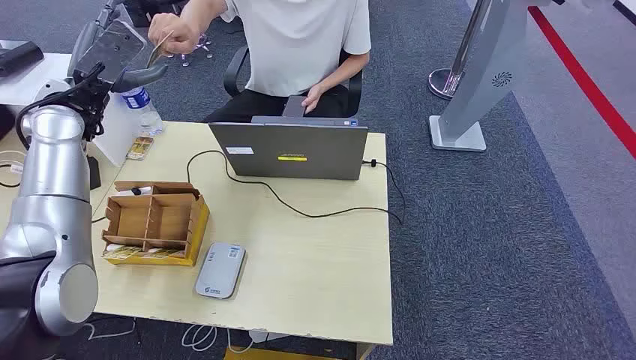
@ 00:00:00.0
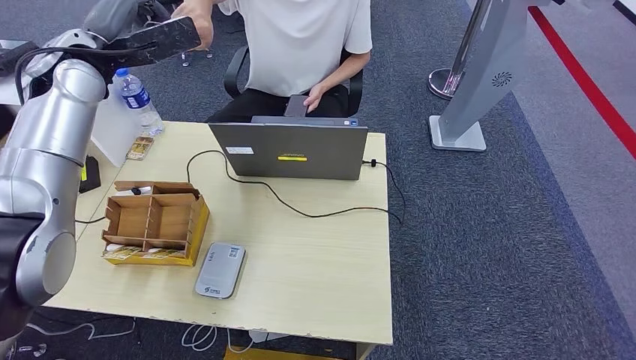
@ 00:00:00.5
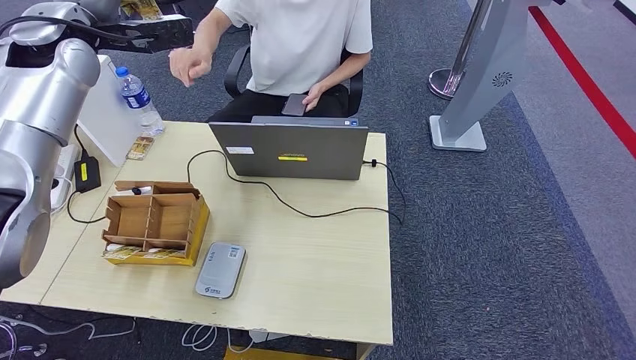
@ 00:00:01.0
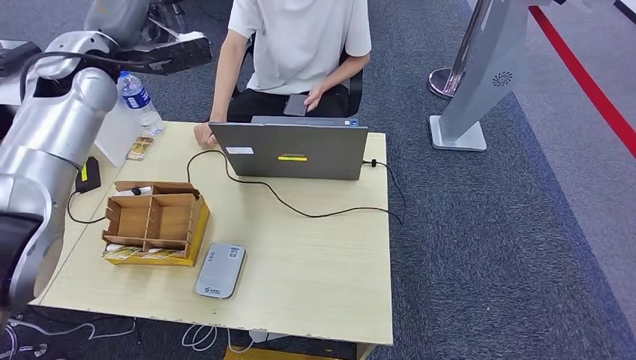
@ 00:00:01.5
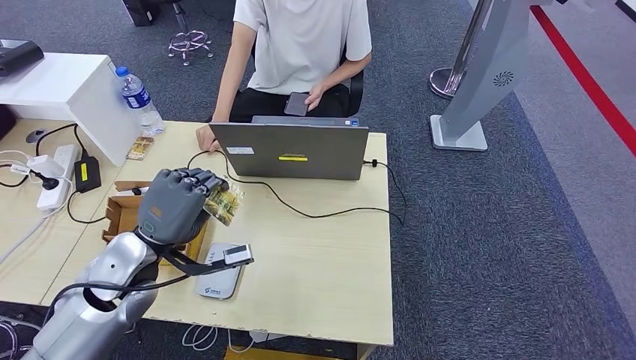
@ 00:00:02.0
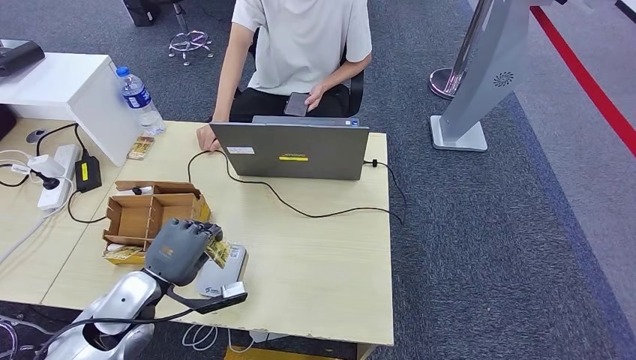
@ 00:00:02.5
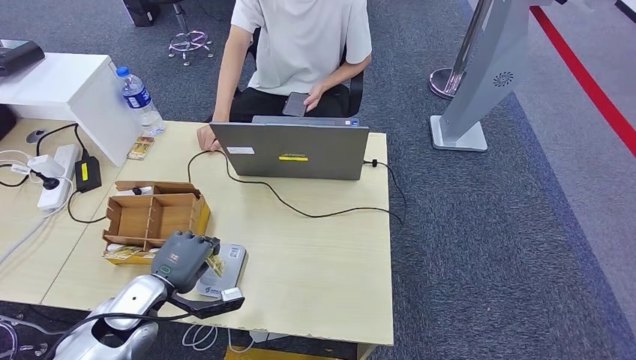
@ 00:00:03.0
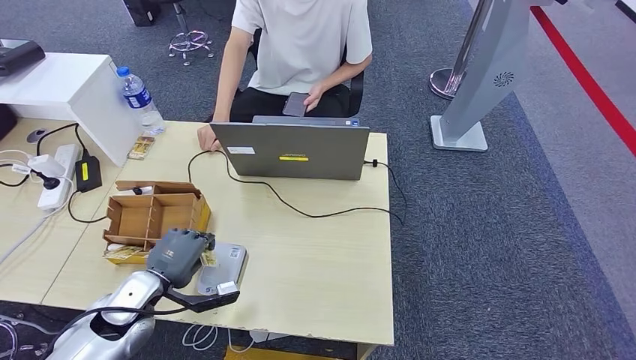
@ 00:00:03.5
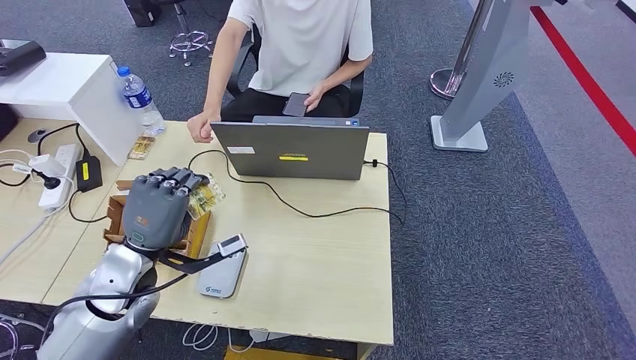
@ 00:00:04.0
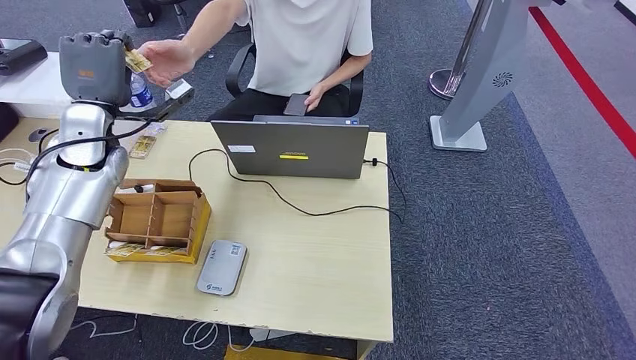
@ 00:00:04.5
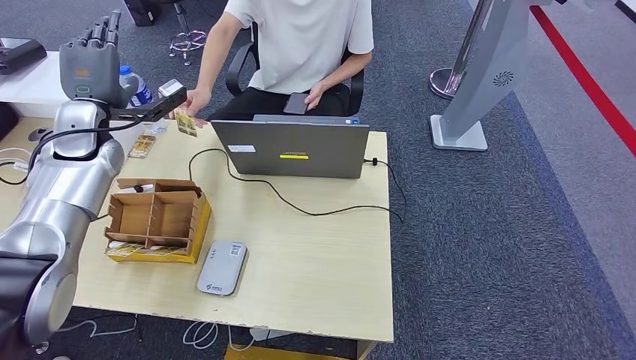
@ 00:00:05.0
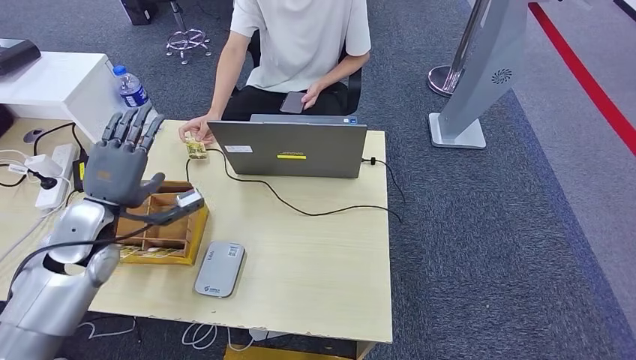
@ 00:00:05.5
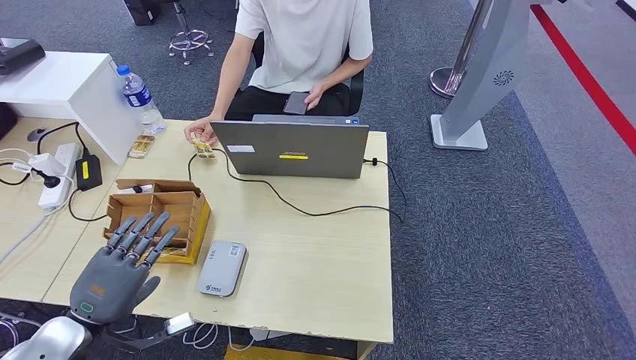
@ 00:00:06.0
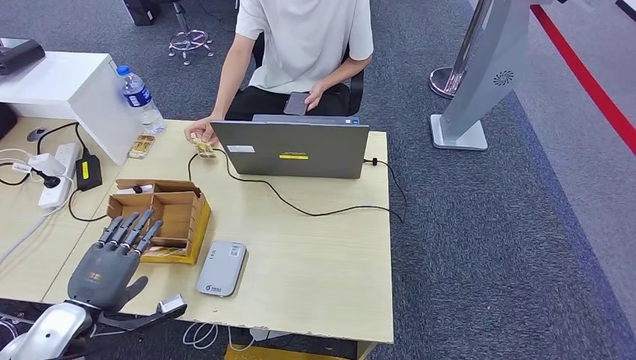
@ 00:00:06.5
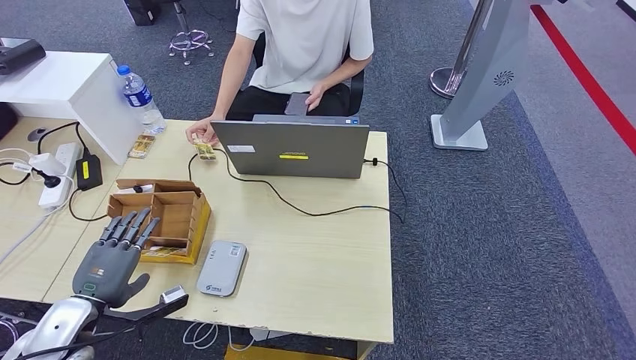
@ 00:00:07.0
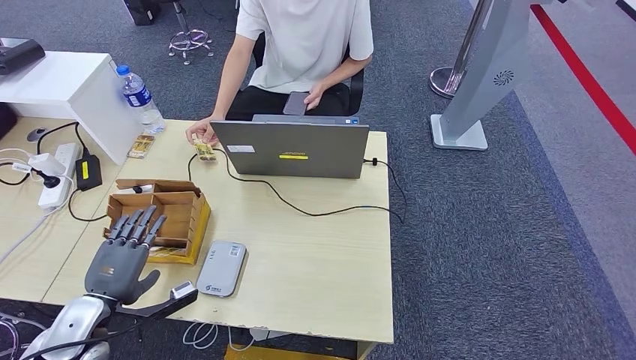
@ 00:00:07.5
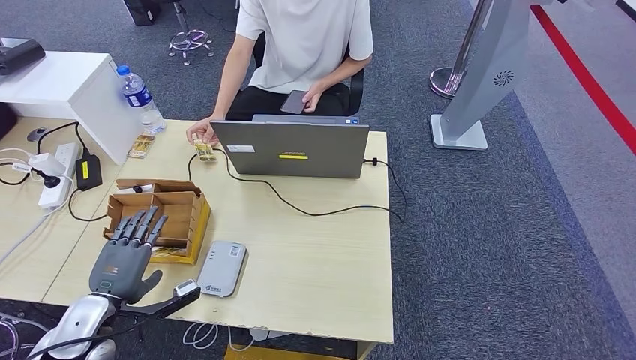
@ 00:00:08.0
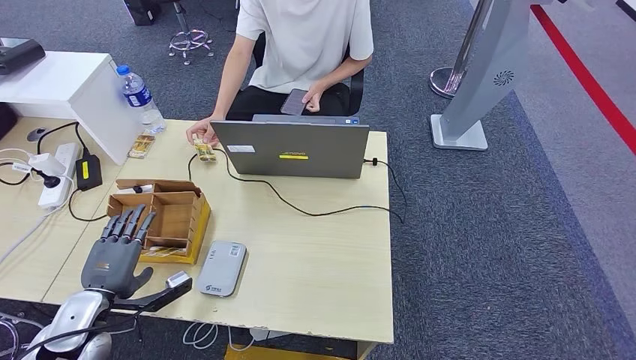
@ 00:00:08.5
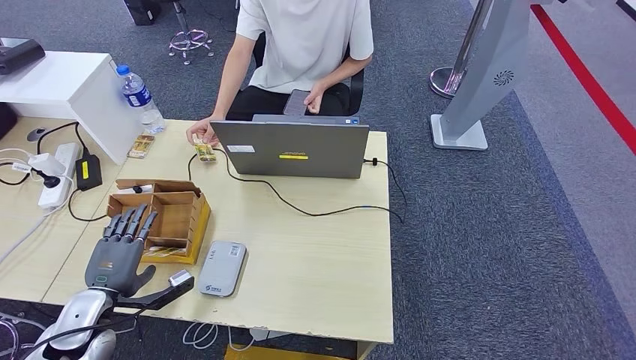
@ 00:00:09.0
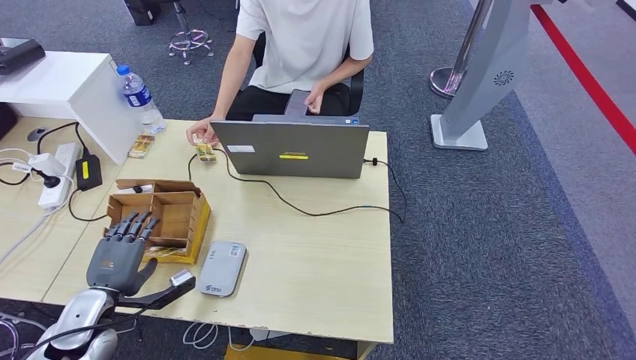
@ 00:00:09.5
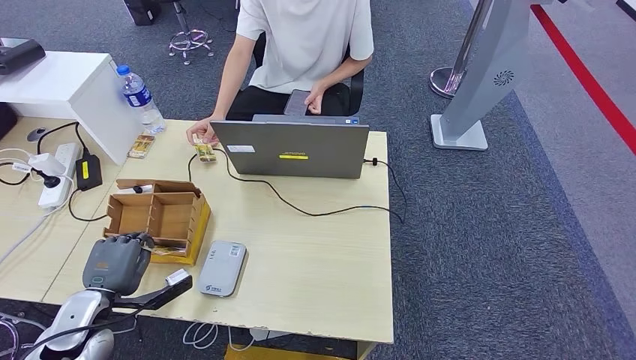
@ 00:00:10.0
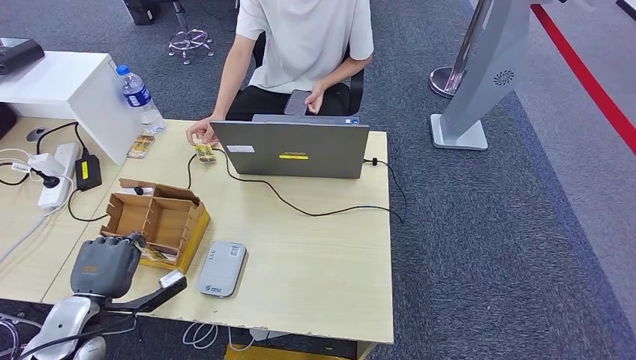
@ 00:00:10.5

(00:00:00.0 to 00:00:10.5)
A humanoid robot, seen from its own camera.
Step, 00:00:00.0 - 00:00:01.5: Take the ID card from the person's hand.
Step, 00:00:02.0 - 00:00:04.0: Place the ID card on the card reader.
Step, 00:00:04.5 - 00:00:07.0: Hand the ID card to the person.
00:00:02.0 - 00:00:04.0: The left hand travels downward and back again, some 10 cm each way.
00:00:04.0 - 00:00:06.5: The left hand goes roughly 10 cm to the left and downward, and goes forward and returns, some 20 cm each way.
00:00:06.5 - 00:00:08.5: The left hand ends up some 5 cm from where it was.
00:00:08.5 - 00:00:10.5: The hands move only a little.

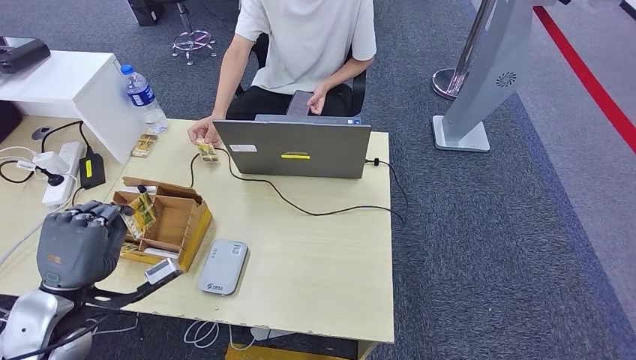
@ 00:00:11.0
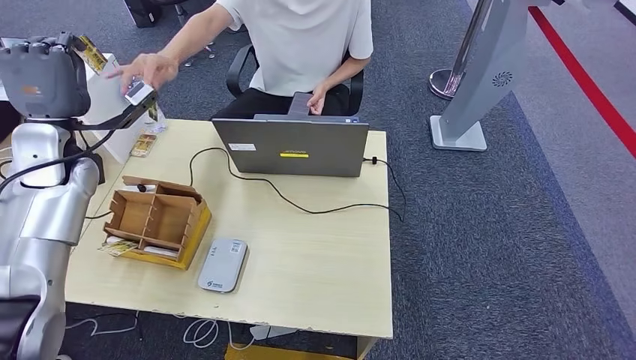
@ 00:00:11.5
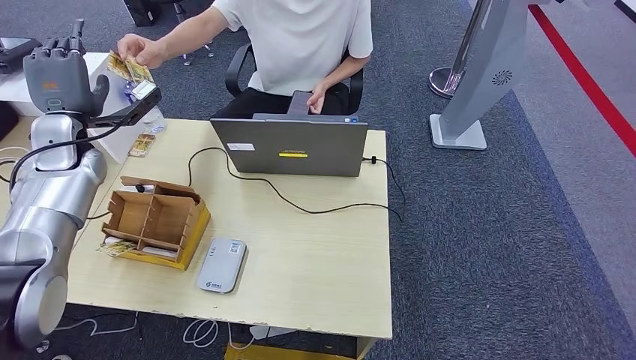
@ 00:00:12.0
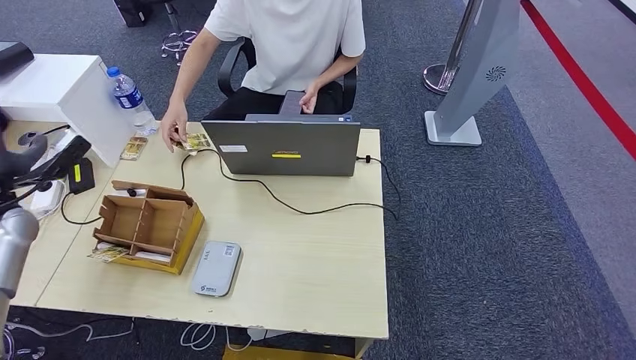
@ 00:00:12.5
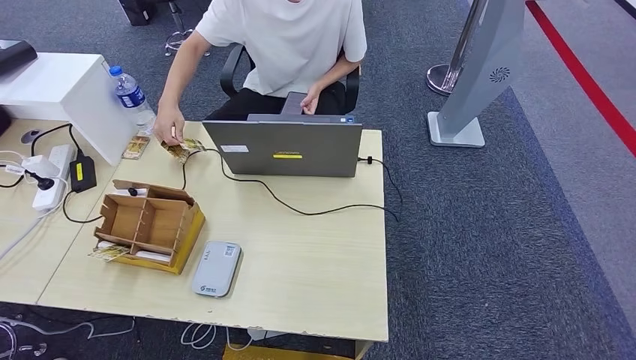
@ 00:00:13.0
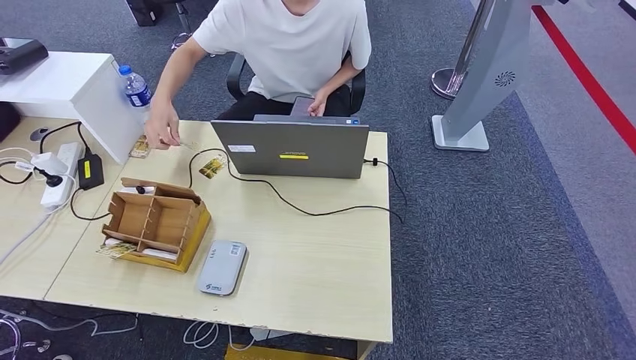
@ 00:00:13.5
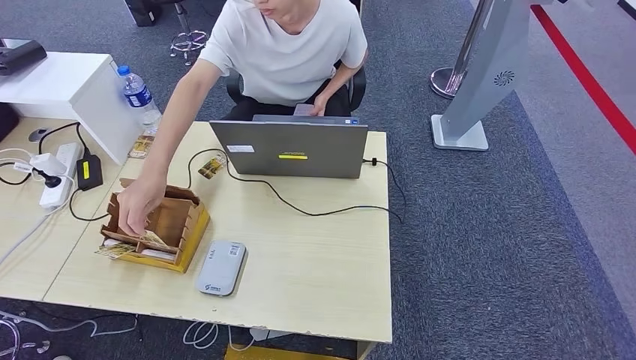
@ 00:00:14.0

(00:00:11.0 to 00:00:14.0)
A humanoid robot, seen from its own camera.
Step, 00:00:11.0 - 00:00:14.0: Hand the room key to the person.

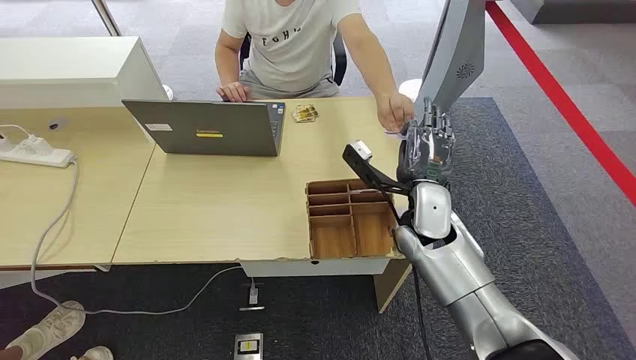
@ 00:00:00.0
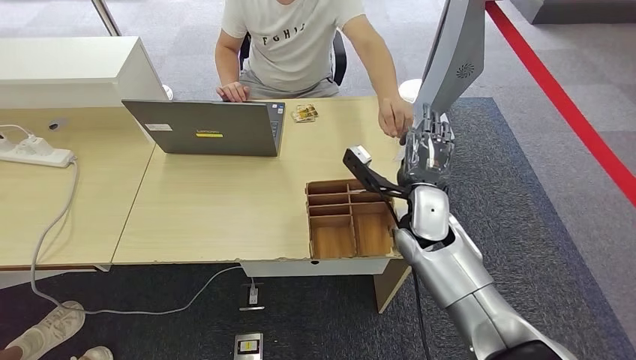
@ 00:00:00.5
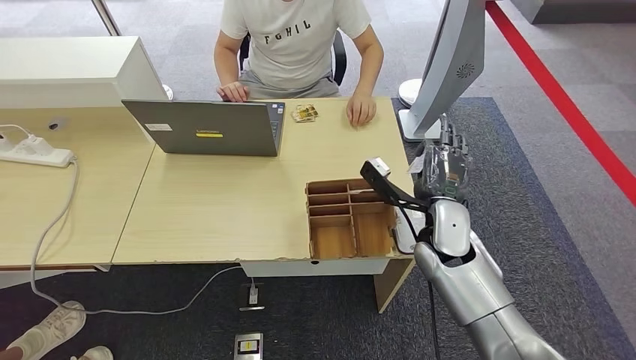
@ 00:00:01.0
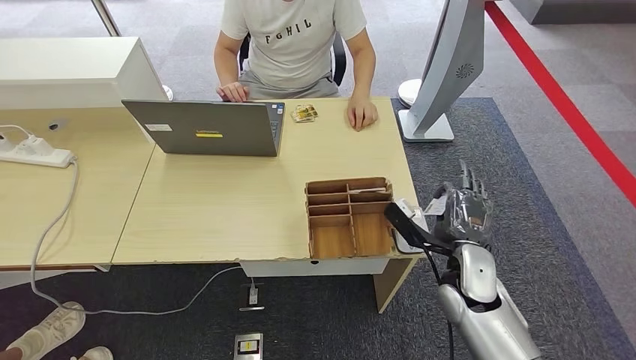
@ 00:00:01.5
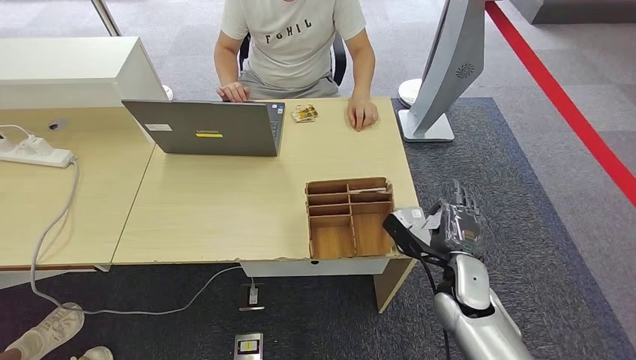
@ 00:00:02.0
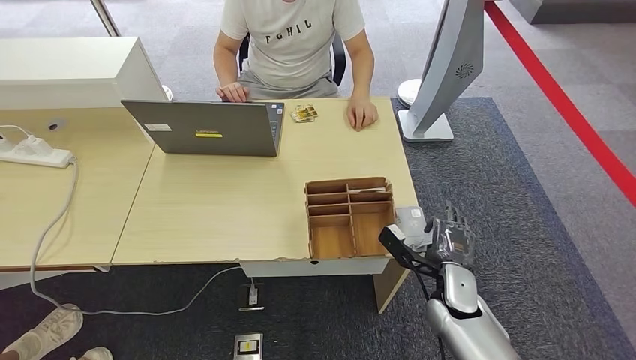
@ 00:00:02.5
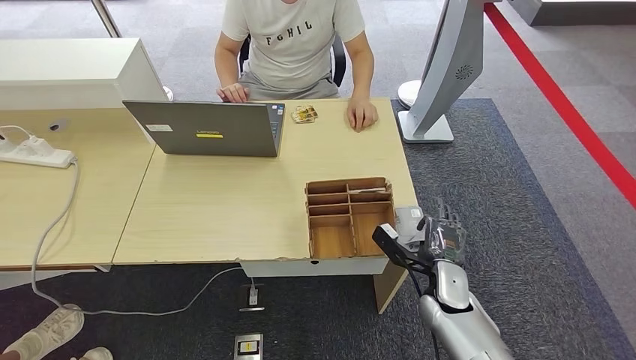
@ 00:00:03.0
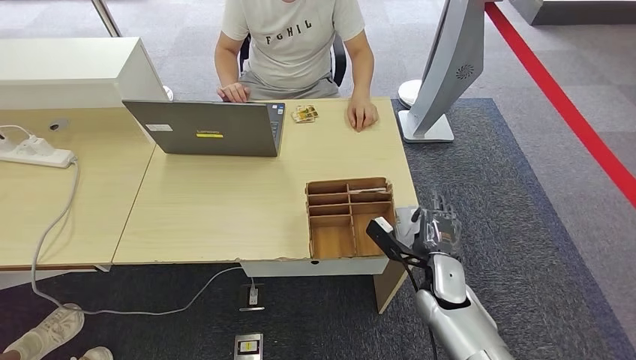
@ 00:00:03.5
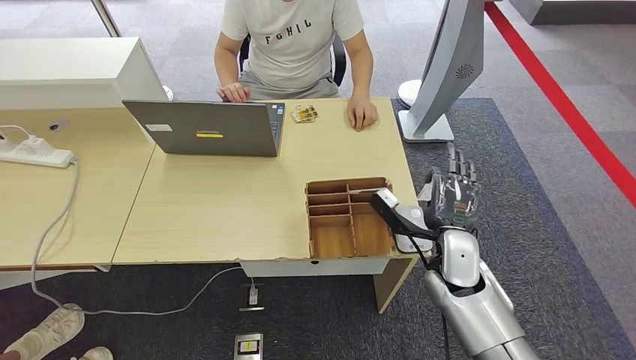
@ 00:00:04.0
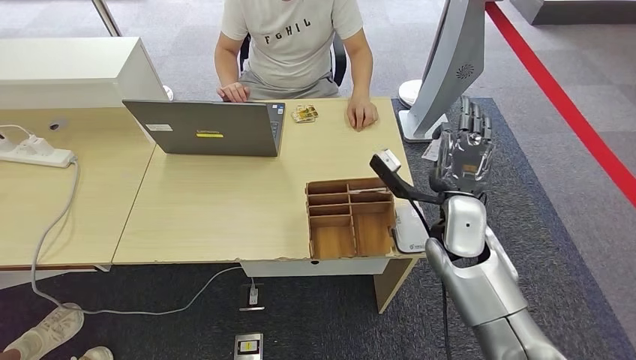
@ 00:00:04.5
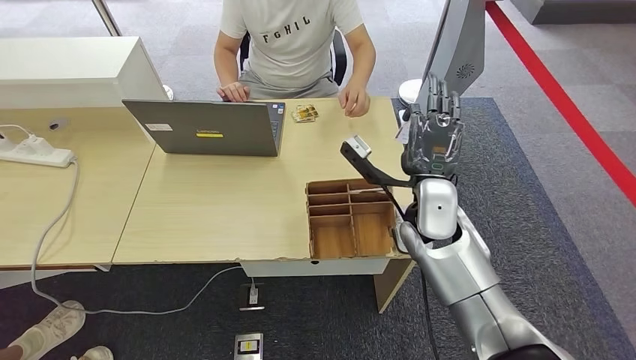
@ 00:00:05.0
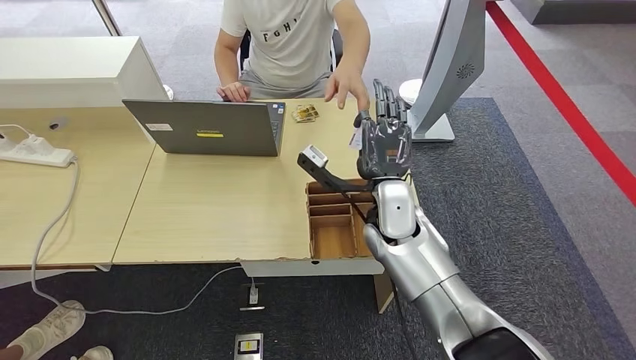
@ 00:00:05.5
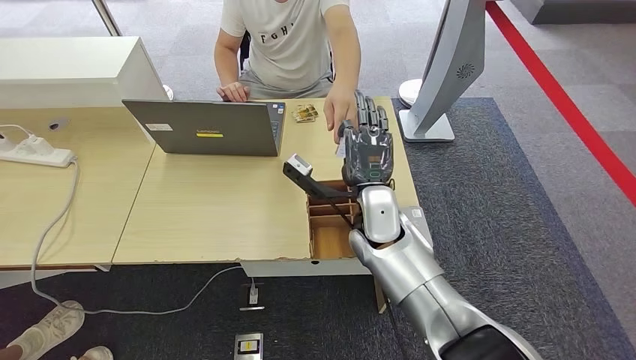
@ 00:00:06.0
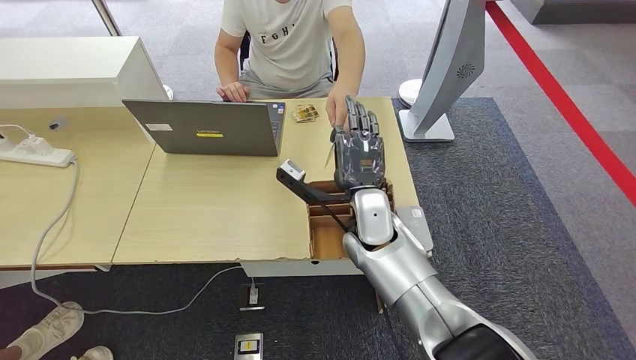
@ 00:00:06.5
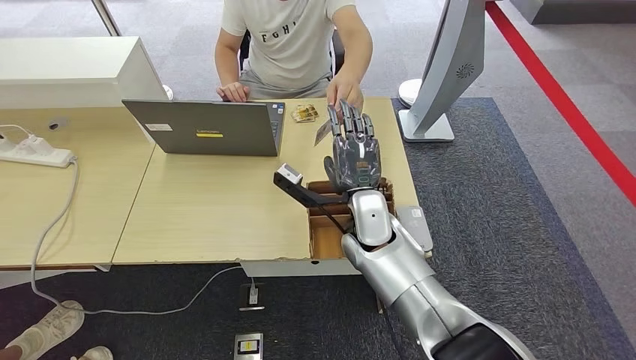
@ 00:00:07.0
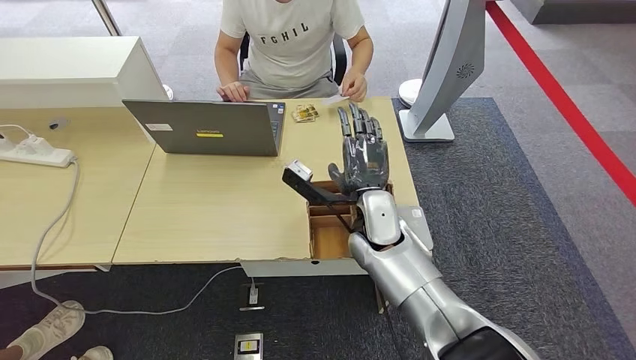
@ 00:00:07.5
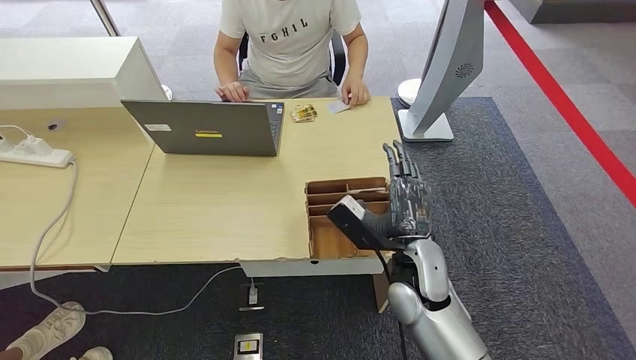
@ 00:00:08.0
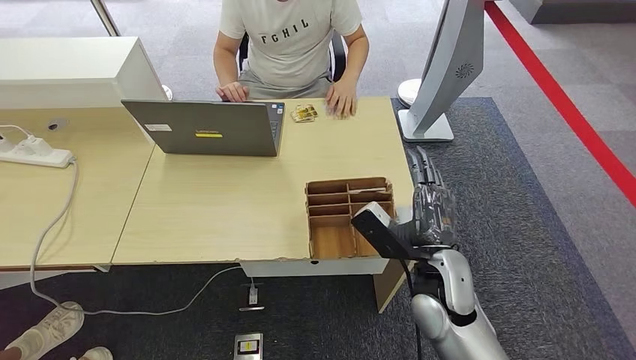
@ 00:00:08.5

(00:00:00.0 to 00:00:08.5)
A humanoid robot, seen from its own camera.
Step, 00:00:00.0 - 00:00:01.0: Take the ID card from the person's hand.
Step, 00:00:01.5 - 00:00:04.5: Place the ID card on the card reader.
Step, 00:00:05.0 - 00:00:08.0: Hand the ID card to the person.
00:00:02.0 - 00:00:04.0: The right hand moves about 5 cm.
00:00:04.0 - 00:00:06.5: The right hand heads to the left, covering about 15 cm.
00:00:06.5 - 00:00:08.5: The right hand shifts some 15 cm backward and to the right.
